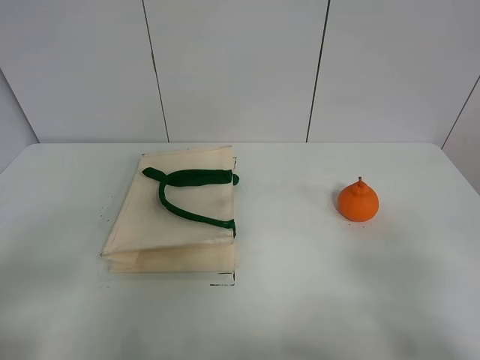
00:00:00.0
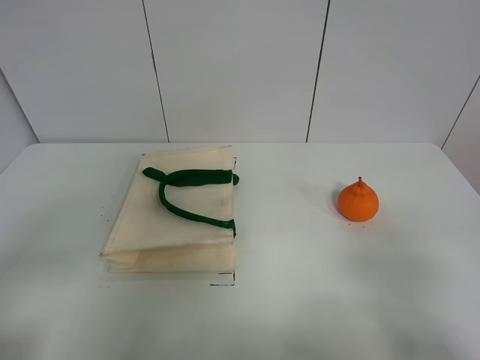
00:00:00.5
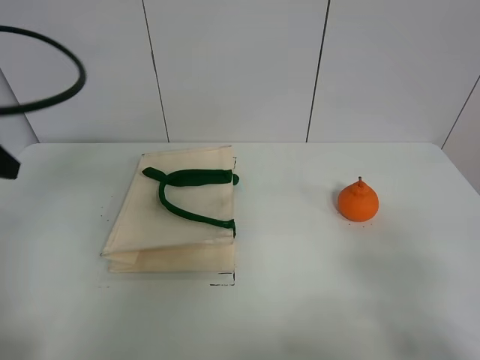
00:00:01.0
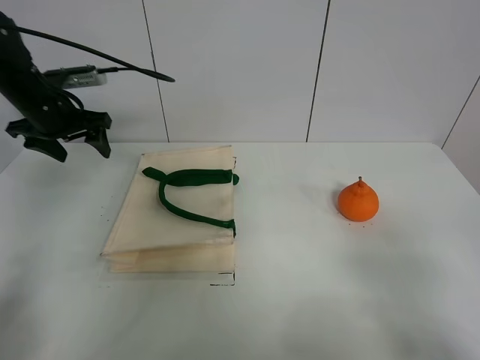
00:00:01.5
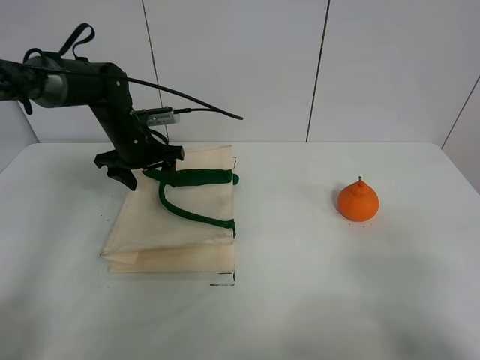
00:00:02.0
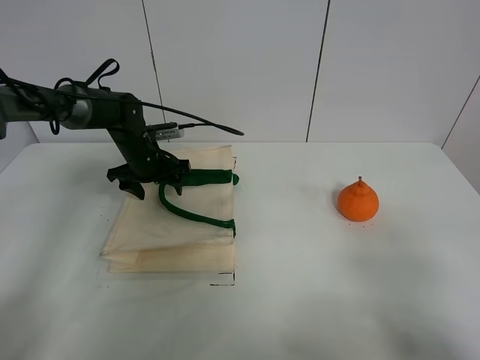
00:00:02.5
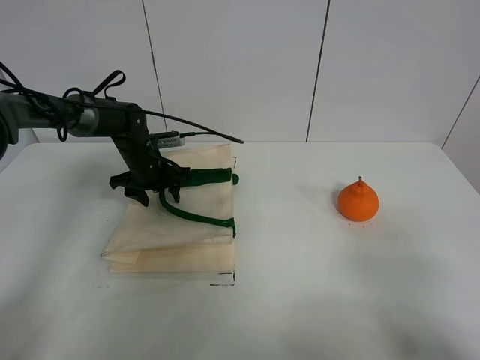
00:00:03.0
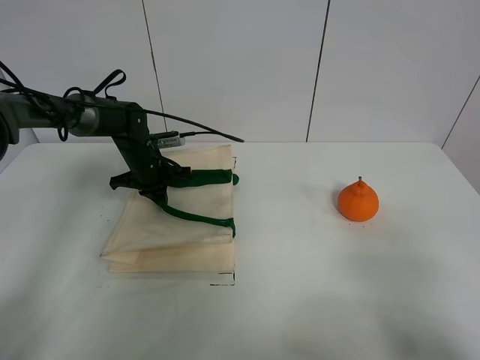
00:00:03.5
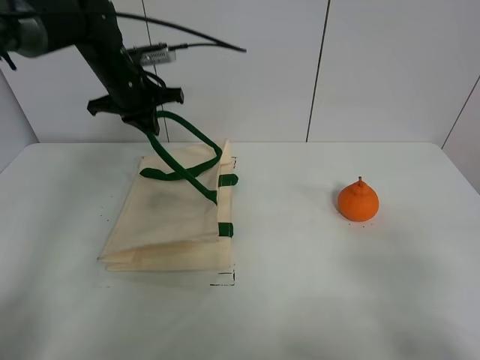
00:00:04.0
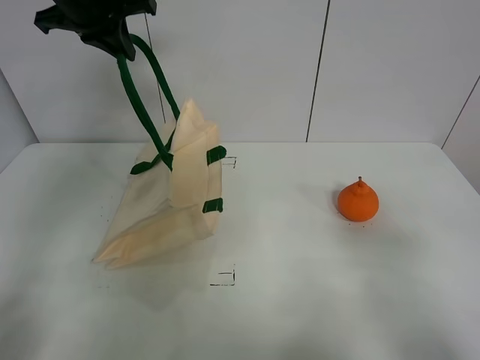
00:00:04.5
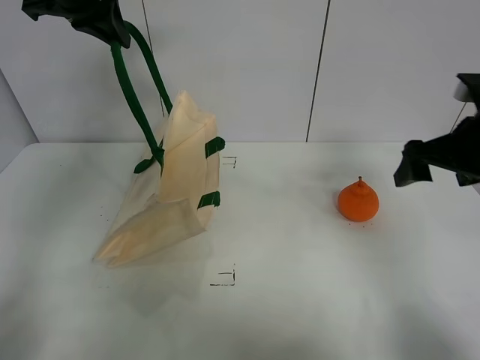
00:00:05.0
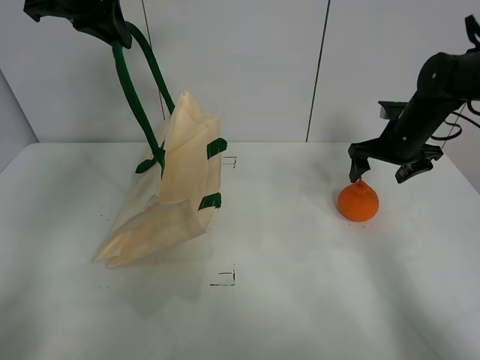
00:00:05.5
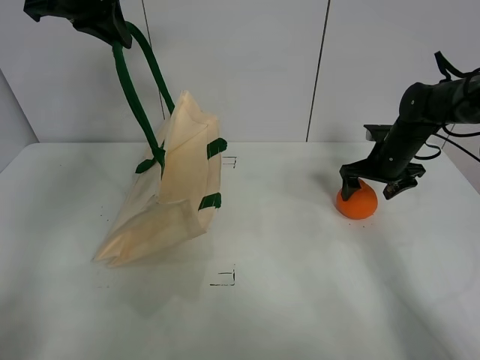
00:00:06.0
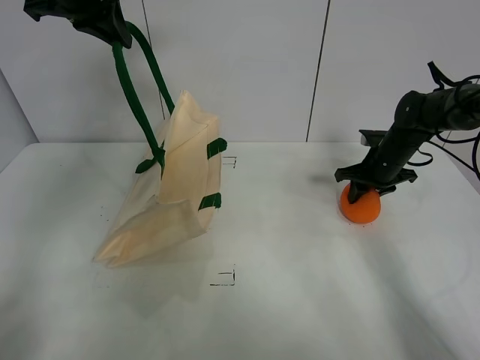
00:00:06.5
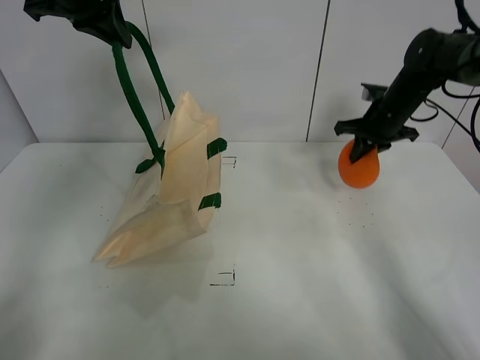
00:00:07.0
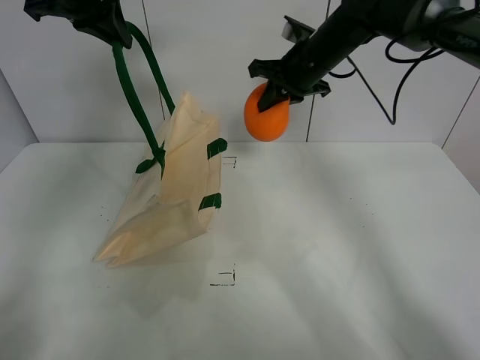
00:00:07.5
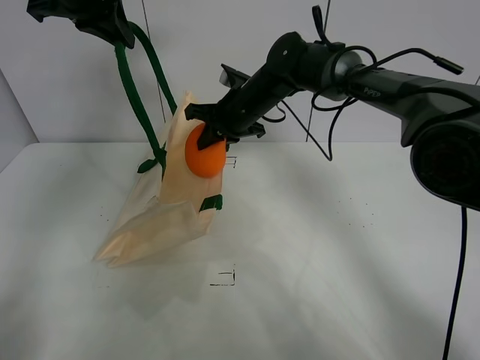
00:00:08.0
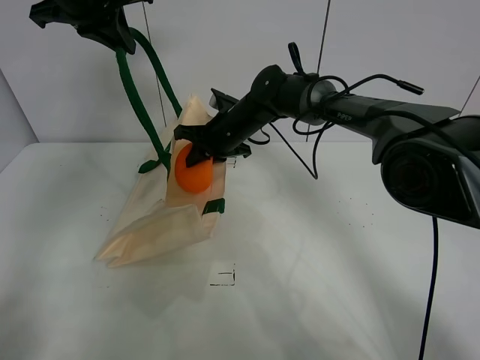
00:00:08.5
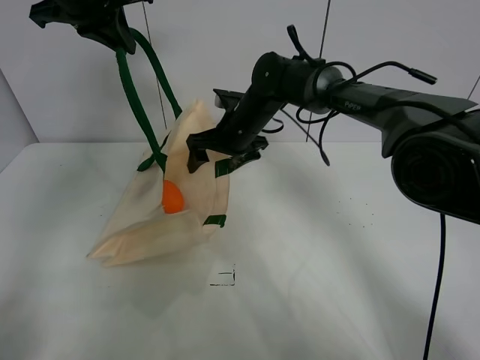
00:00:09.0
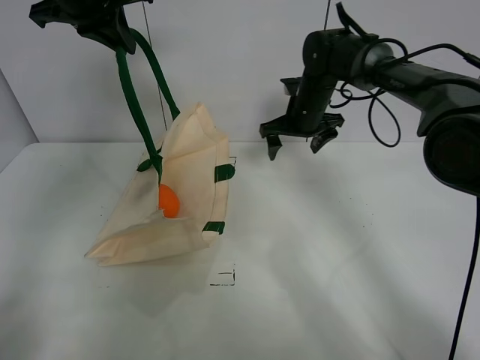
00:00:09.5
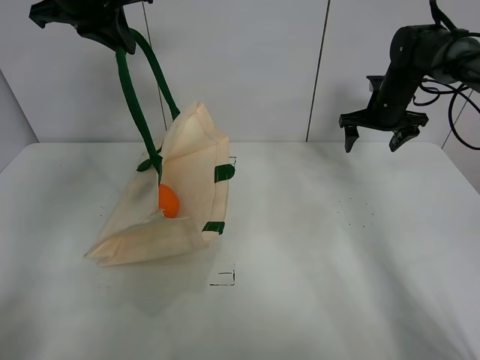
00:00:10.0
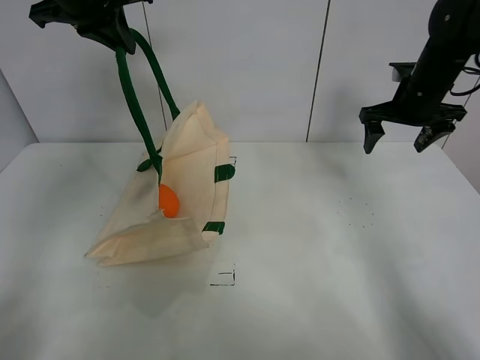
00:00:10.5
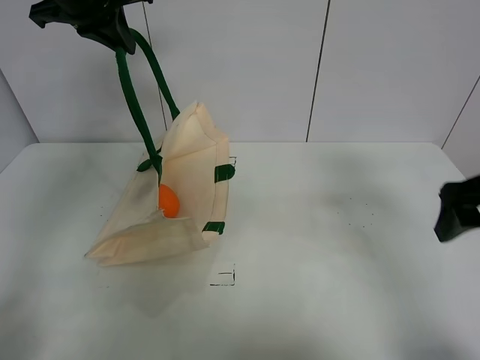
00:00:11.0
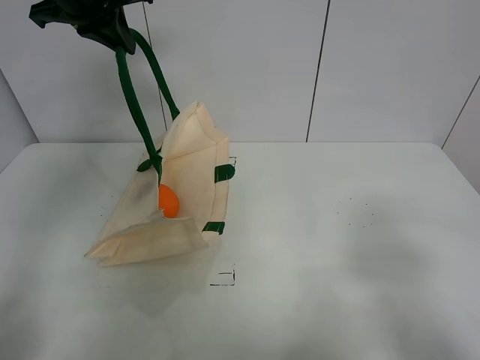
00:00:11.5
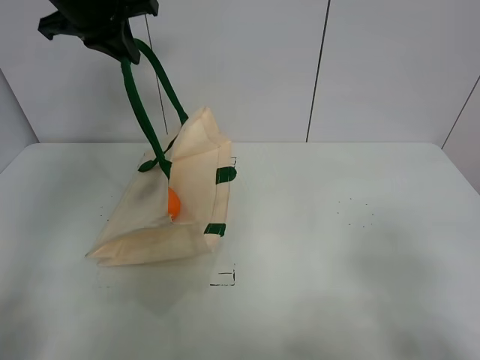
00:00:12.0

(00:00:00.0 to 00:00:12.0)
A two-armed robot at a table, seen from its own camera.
Task of the whole recording: open the white linen bag and put the orange in the bag.
Step, 00:00:00.0 - 00:00:04.0: Lift the handbag with left gripper.
Step, 00:00:04.5 - 00:00:06.5: Grasp the orange with right gripper.
Step, 00:00:07.0 - 00:00:08.5: Place the orange in the handbag with right gripper.
00:00:00.0 - 00:00:02.0: The left gripper heads forward, covering approximately 40 cm.
00:00:02.0 - 00:00:04.0: The left gripper goes roughly 10 cm upward, and closes.
00:00:04.0 - 00:00:06.0: The right gripper moves forward, about 40 cm. Meanwhile the left gripper moves upward and backward, approximately 15 cm.
00:00:06.0 - 00:00:08.0: The right gripper travels to the left by about 25 cm, and closes up.
00:00:08.0 - 00:00:10.0: The right gripper goes some 25 cm to the right, and opens up.
00:00:10.0 - 00:00:12.0: The right gripper heads backward, covering about 50 cm.

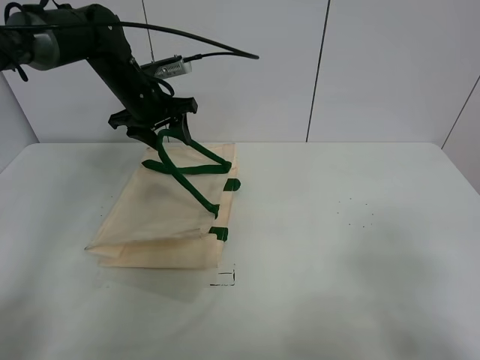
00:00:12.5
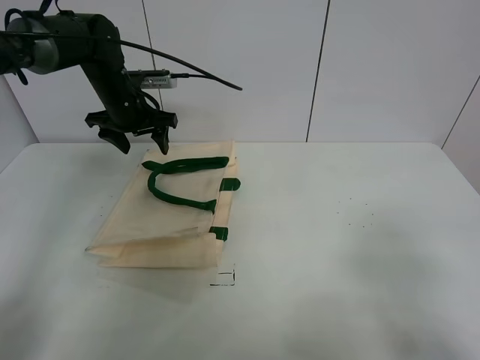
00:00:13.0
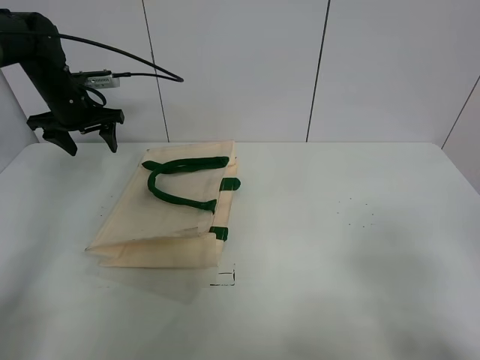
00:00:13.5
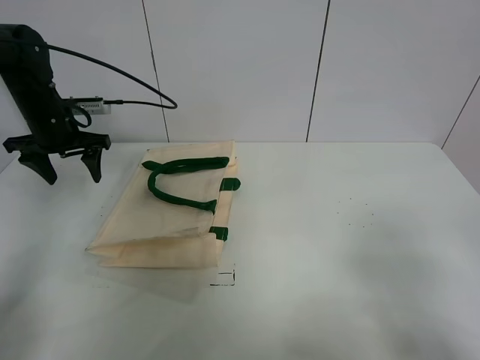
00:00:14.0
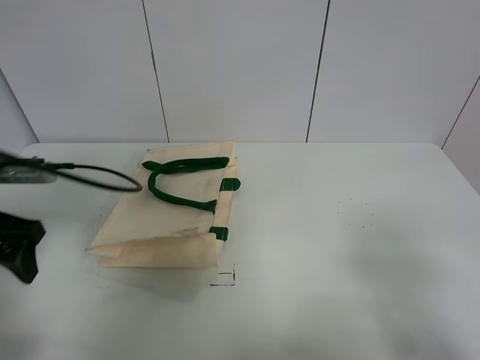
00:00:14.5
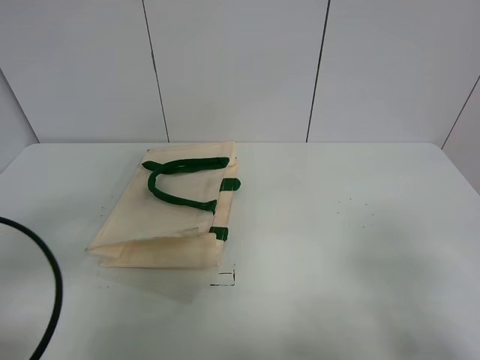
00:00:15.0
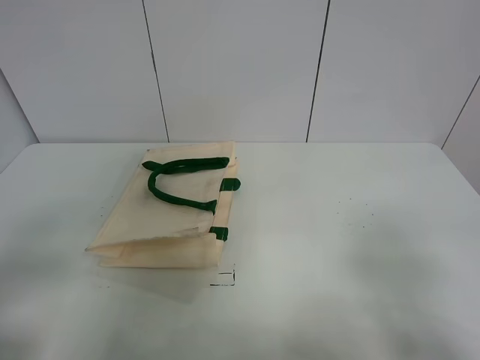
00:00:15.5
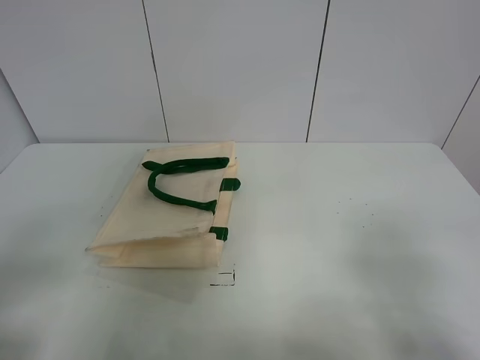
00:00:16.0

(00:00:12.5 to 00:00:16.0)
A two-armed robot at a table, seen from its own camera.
Task of the whole recording: open the white linen bag and put the orange in the bag.
00:00:12.5 - 00:00:14.5: The left gripper is displaced backward and to the left by some 30 cm.
00:00:14.5 - 00:00:16.0: The left gripper is displaced backward by approximately 20 cm.
